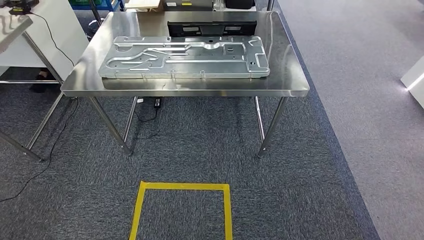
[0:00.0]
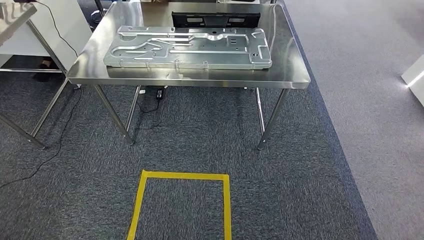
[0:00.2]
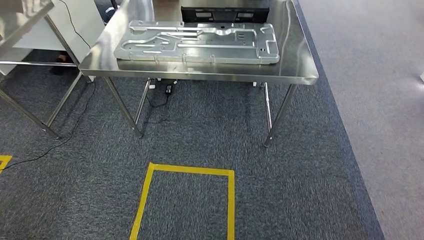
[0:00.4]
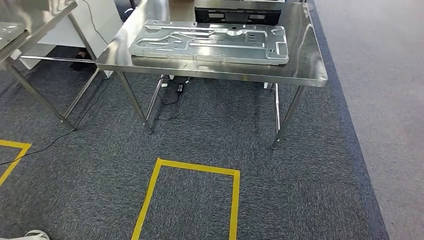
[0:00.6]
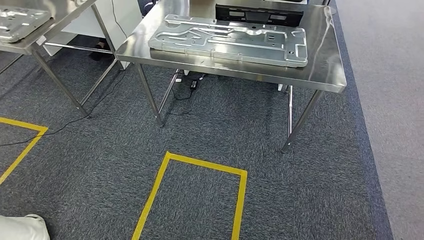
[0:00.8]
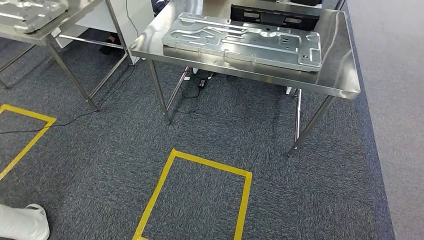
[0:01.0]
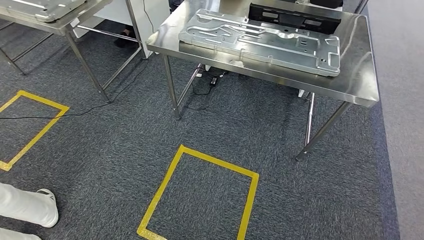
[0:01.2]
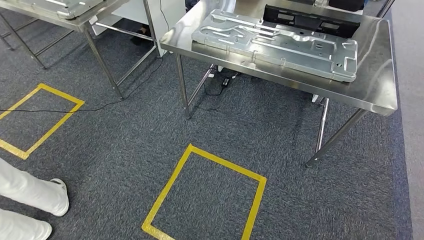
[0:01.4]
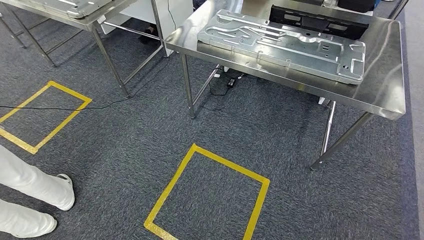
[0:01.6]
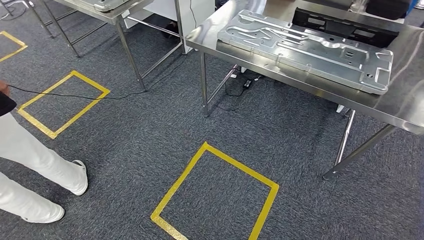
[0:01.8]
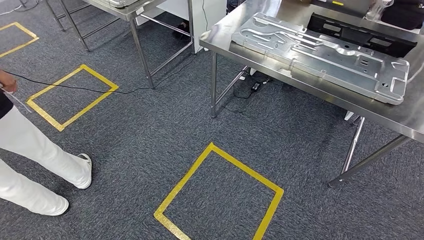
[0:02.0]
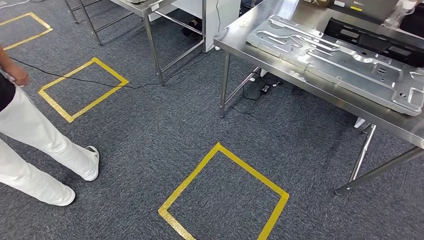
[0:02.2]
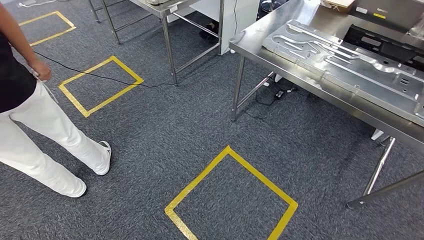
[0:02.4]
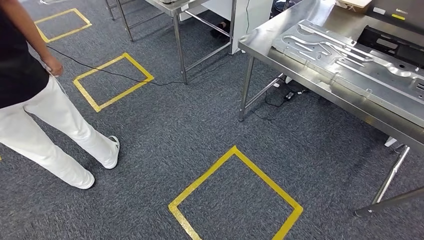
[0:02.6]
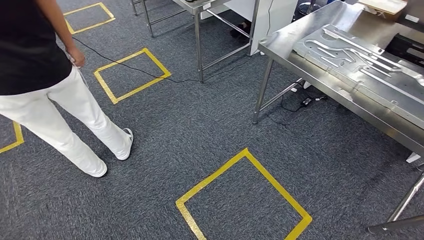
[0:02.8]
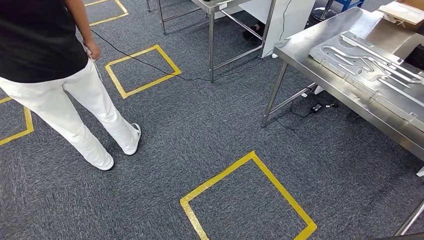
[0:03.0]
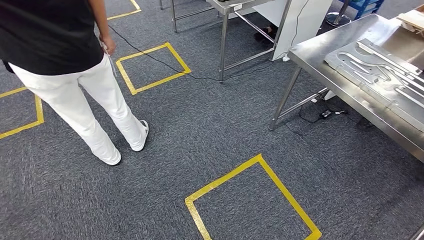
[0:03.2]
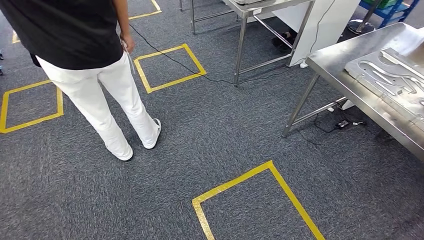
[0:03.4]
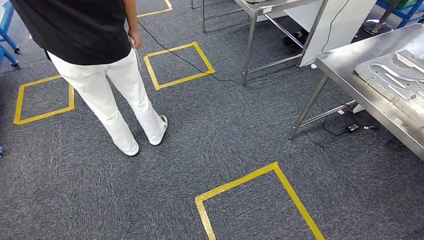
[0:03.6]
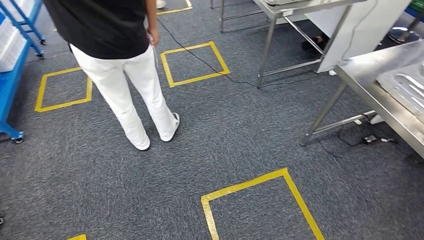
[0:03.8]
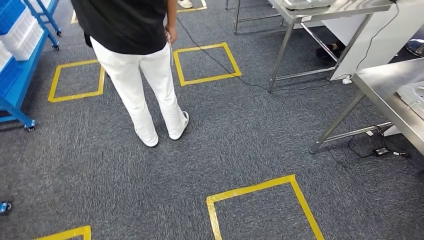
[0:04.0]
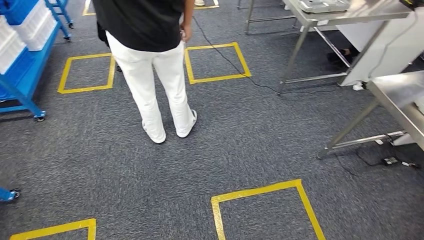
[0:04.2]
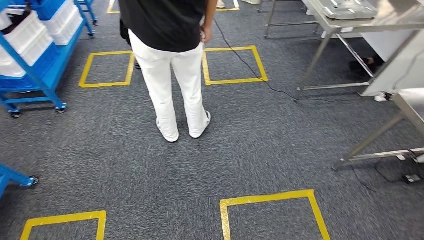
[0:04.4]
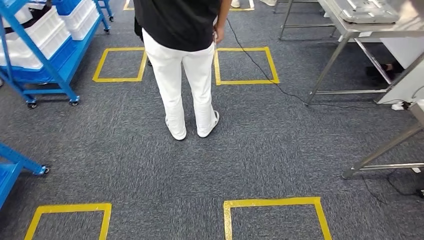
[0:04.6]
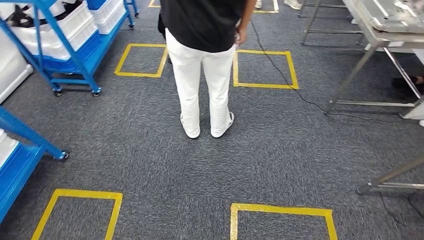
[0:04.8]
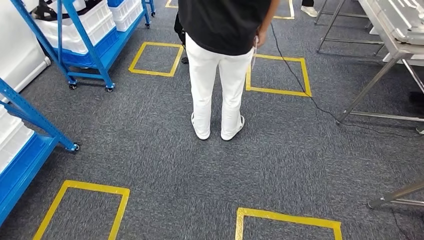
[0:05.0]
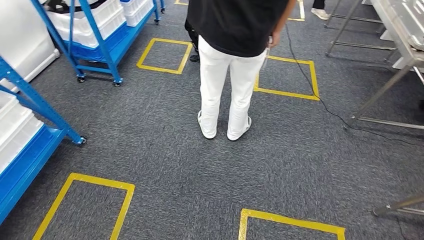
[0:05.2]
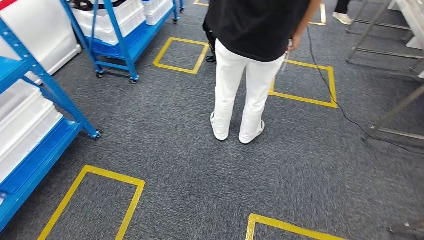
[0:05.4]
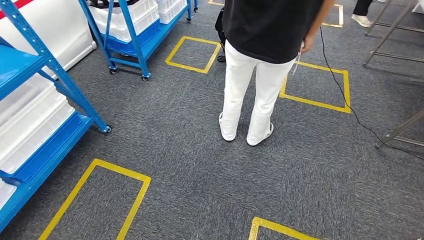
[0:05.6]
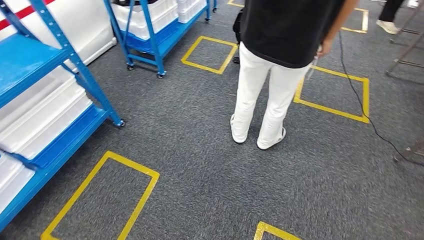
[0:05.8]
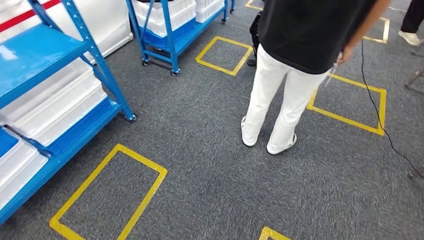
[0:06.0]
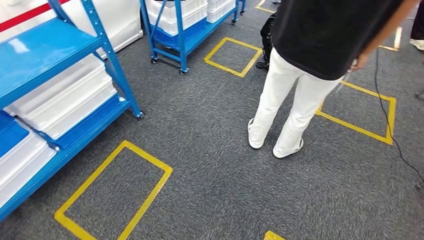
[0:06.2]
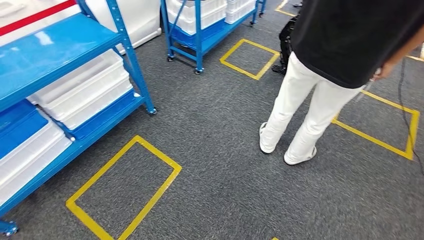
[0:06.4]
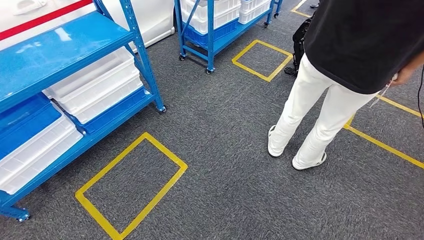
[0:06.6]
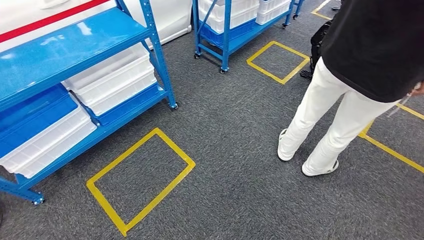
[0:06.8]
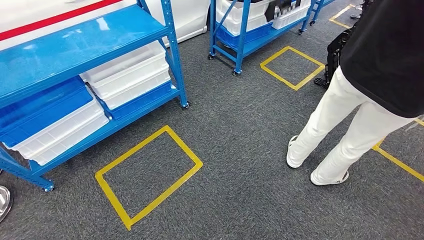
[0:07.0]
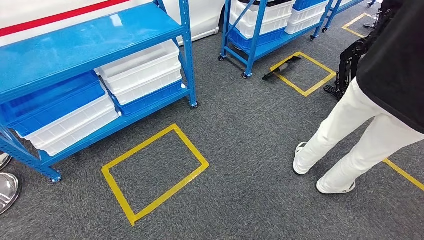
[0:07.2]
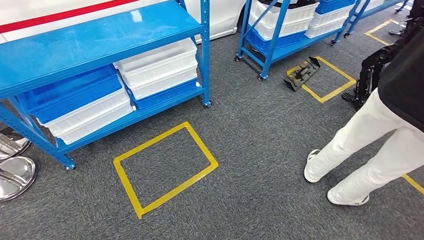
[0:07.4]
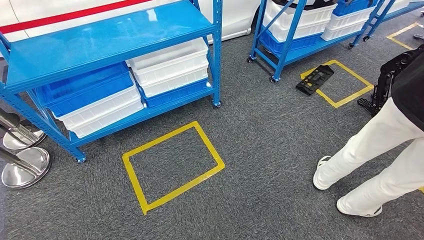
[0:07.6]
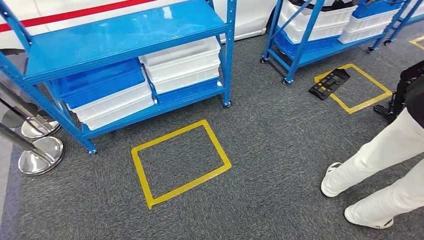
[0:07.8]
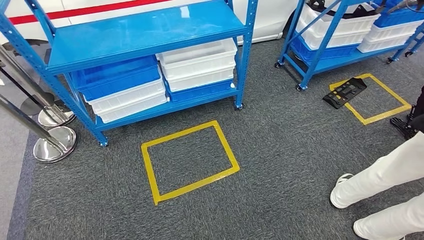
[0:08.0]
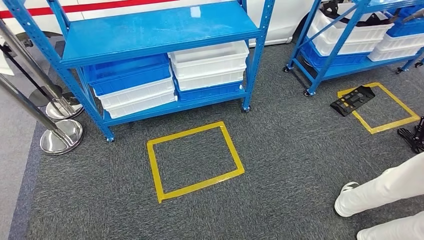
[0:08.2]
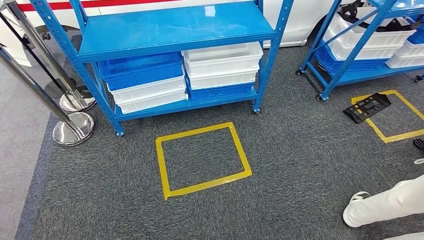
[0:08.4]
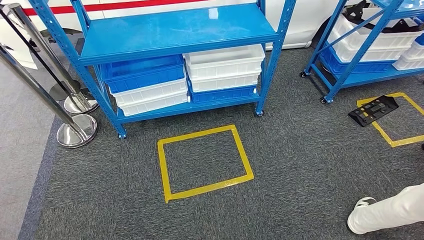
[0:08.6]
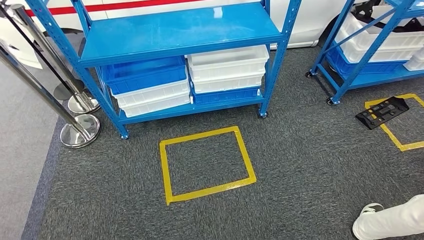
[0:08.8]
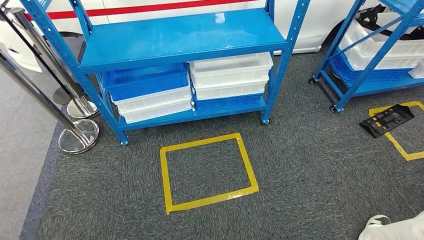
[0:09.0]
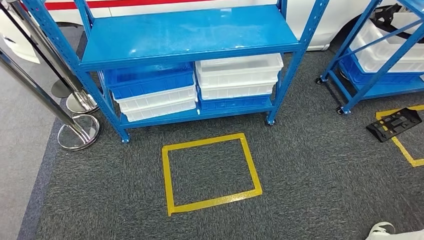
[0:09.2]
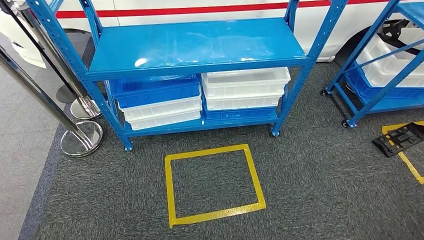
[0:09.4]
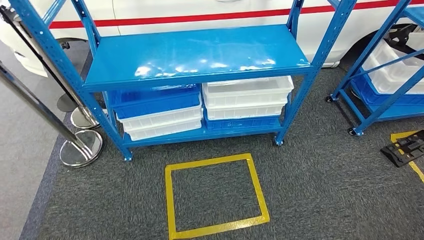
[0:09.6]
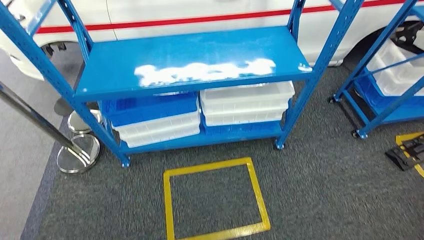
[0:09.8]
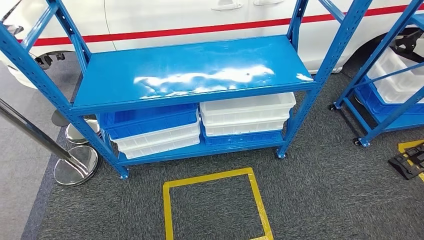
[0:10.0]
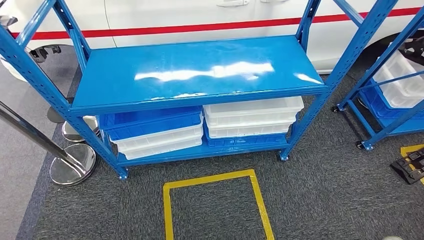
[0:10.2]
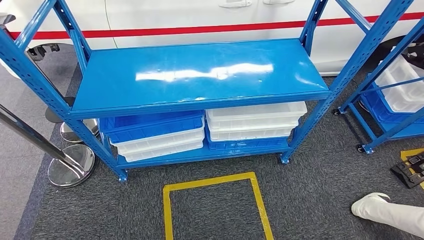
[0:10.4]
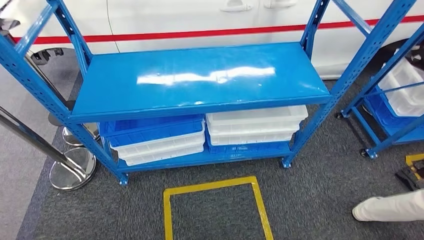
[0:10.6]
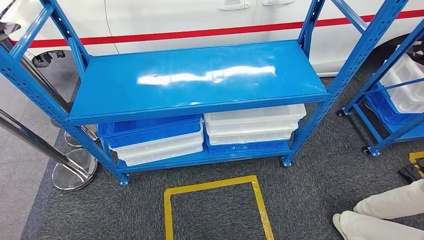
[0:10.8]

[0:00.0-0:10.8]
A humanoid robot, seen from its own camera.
Step, 0:00.0 to 0:10.8: Move to the initial position of the shelf.

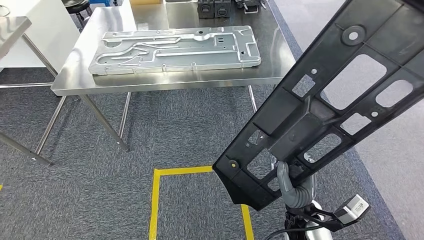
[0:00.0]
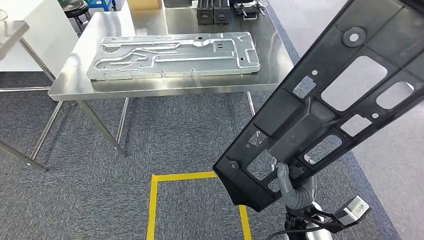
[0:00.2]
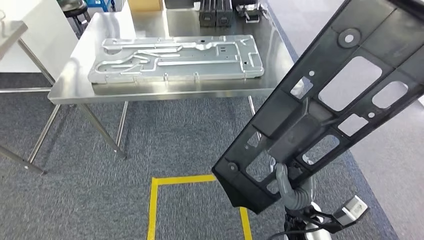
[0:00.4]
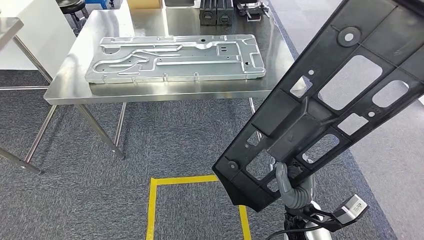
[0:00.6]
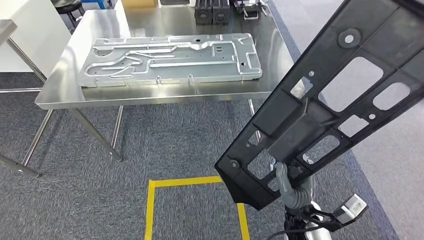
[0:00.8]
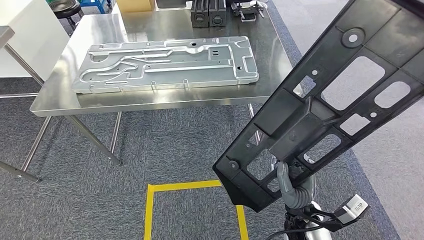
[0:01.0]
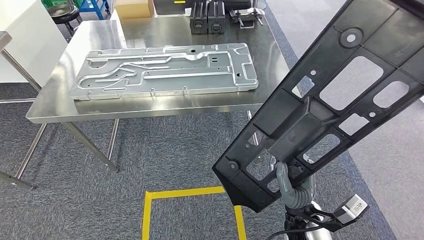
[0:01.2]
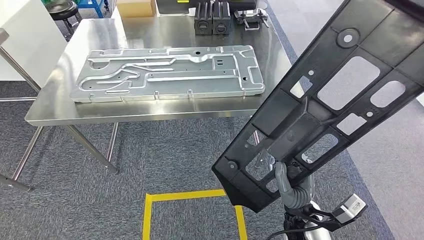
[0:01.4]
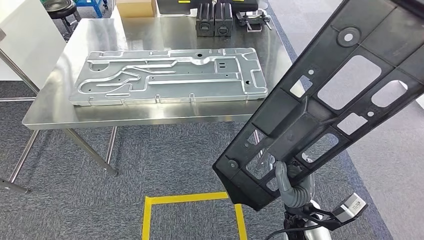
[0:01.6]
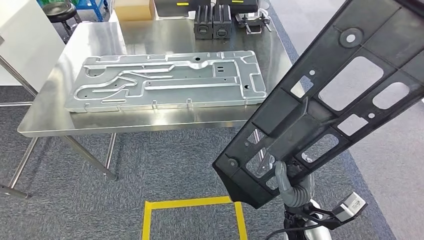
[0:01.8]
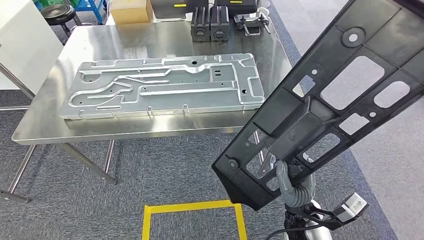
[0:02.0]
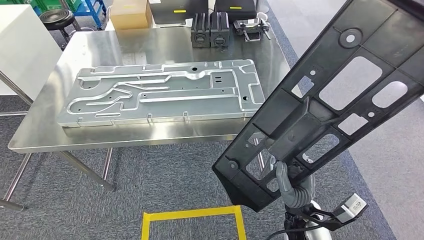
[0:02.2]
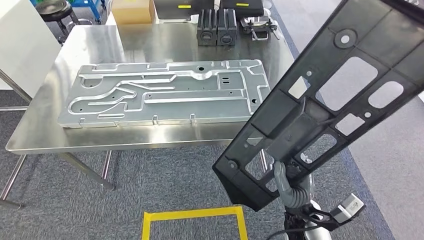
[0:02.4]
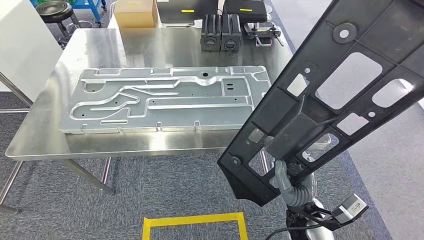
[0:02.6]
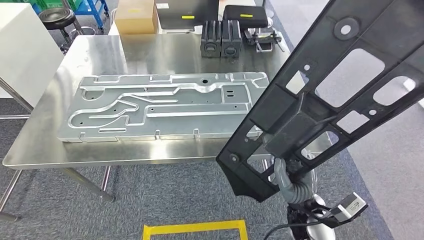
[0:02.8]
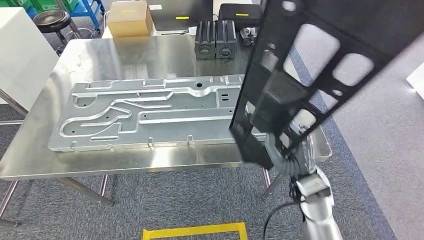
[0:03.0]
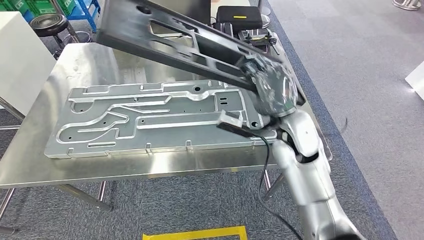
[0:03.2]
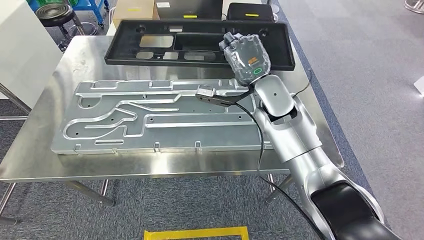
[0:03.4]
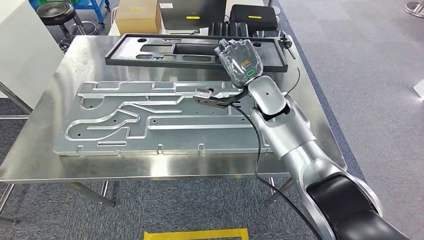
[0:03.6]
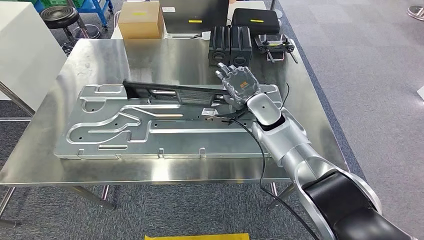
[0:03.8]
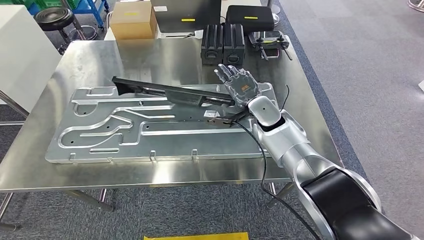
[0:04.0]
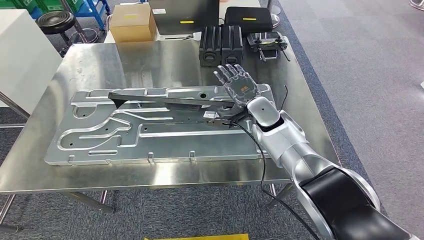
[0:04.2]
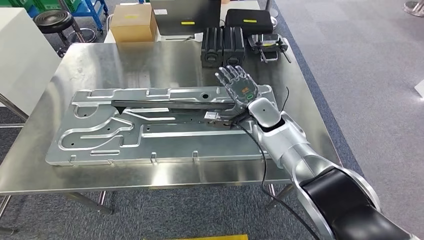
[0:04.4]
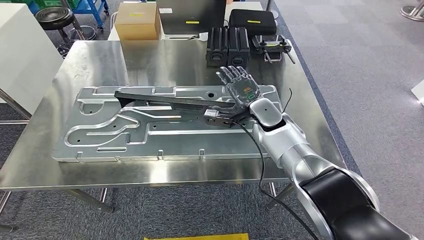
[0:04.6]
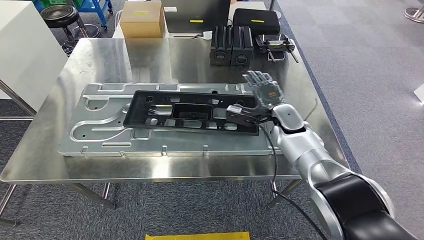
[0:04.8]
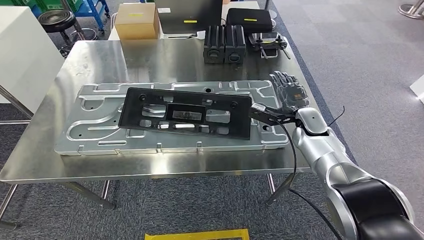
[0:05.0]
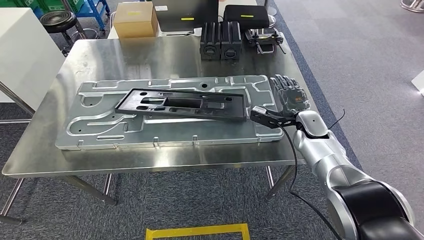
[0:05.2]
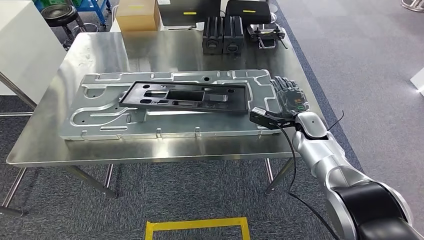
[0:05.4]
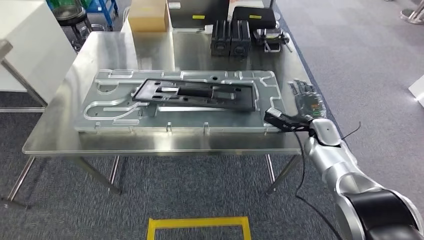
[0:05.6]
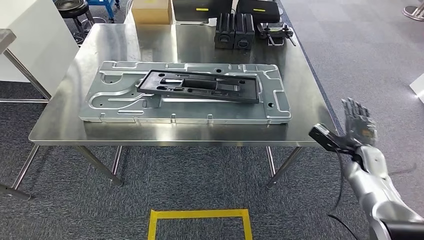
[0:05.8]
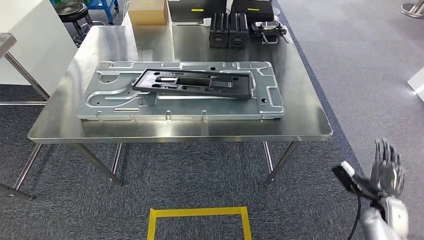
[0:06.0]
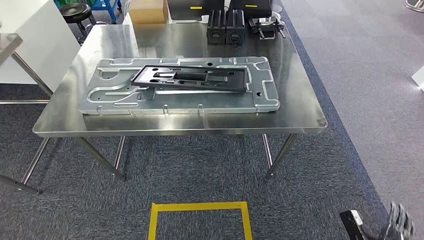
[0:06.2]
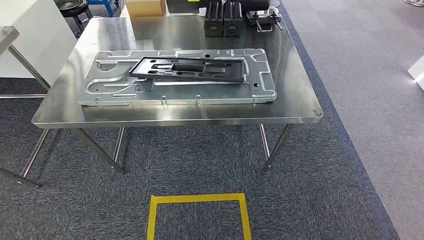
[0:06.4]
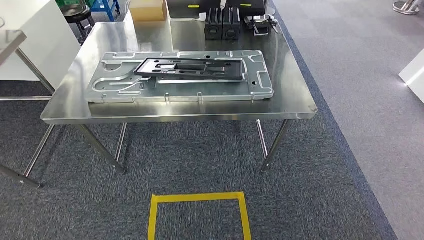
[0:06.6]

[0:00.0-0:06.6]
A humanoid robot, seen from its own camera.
Step, 0:00.0 to 0:03.4: Move the large material to the workbench.
Step, 0:03.6 to 0:05.2: Insert the large material into the corresponding slot on the workbench.
